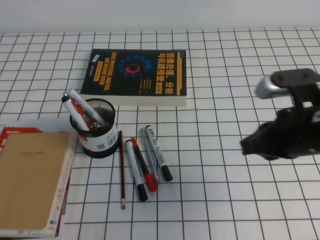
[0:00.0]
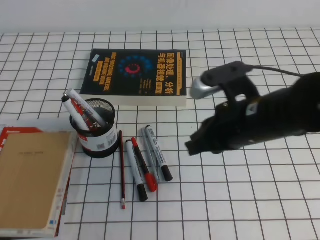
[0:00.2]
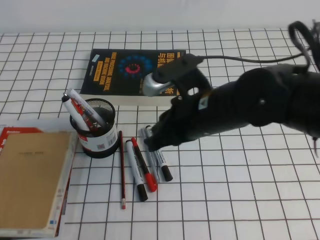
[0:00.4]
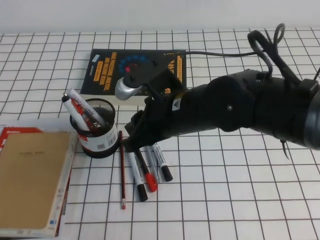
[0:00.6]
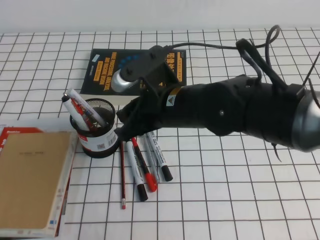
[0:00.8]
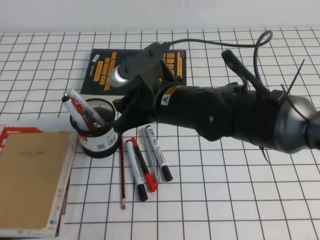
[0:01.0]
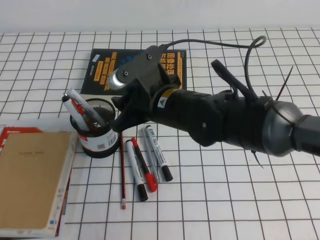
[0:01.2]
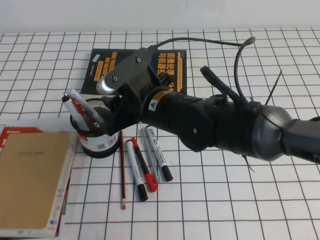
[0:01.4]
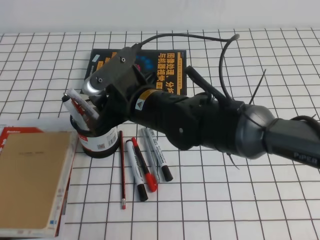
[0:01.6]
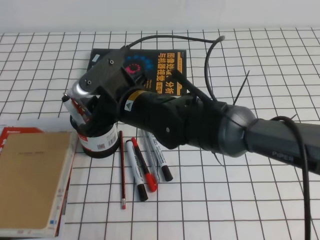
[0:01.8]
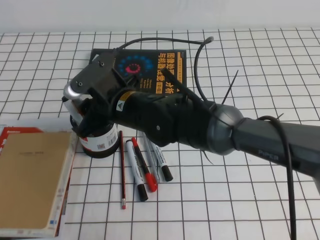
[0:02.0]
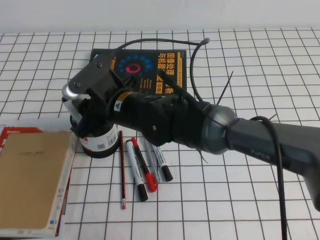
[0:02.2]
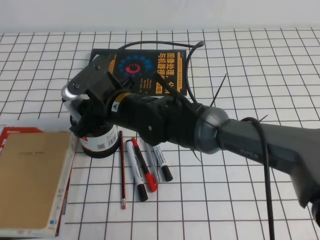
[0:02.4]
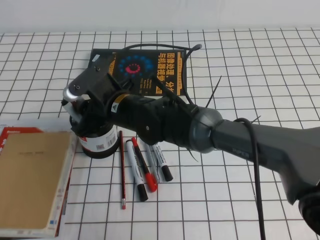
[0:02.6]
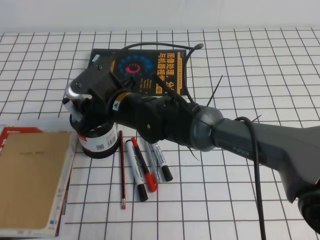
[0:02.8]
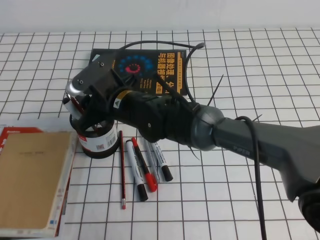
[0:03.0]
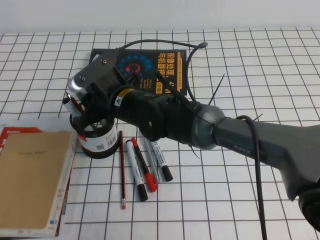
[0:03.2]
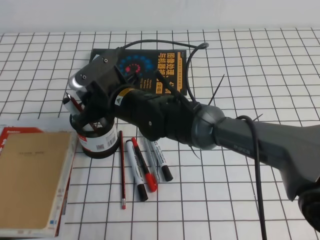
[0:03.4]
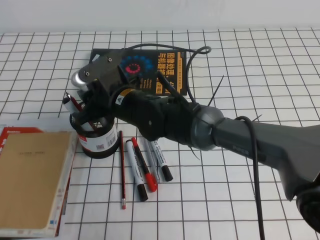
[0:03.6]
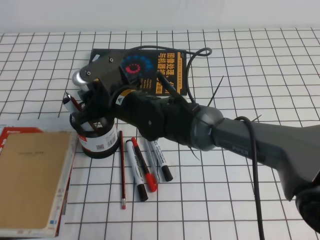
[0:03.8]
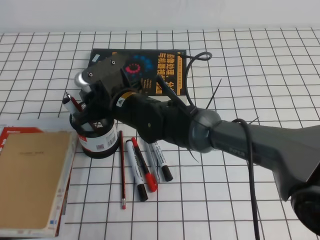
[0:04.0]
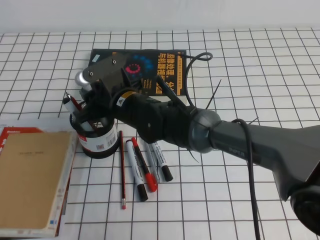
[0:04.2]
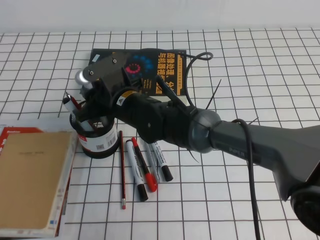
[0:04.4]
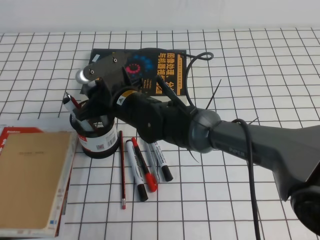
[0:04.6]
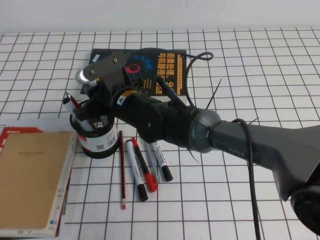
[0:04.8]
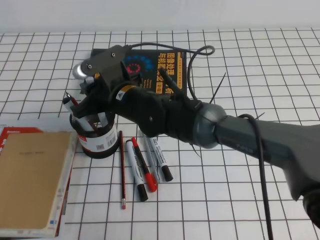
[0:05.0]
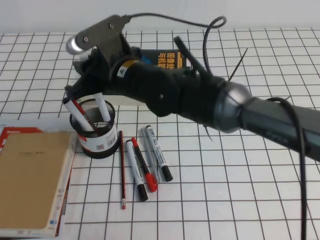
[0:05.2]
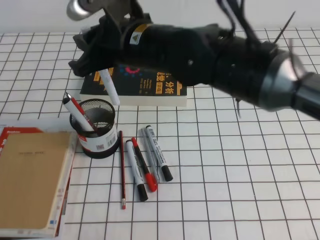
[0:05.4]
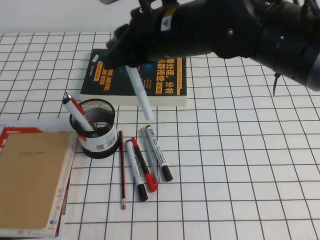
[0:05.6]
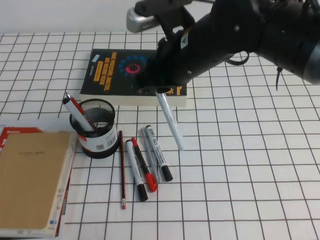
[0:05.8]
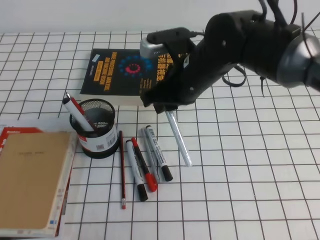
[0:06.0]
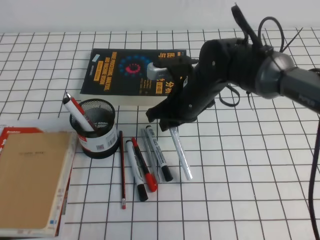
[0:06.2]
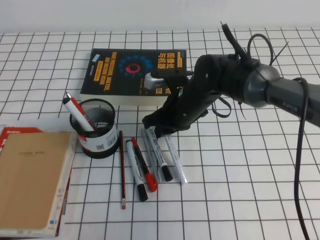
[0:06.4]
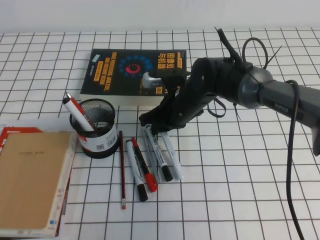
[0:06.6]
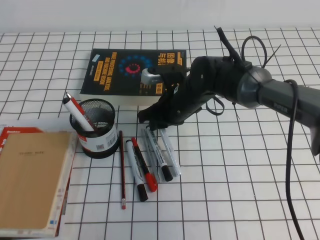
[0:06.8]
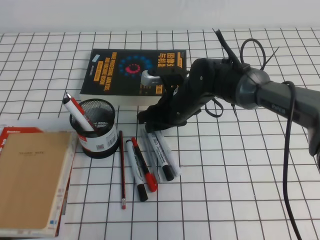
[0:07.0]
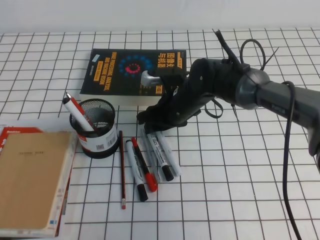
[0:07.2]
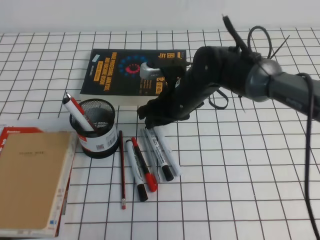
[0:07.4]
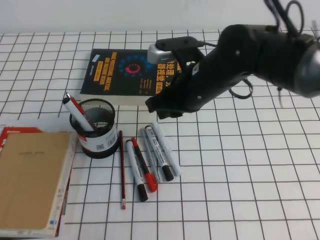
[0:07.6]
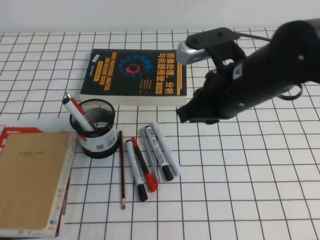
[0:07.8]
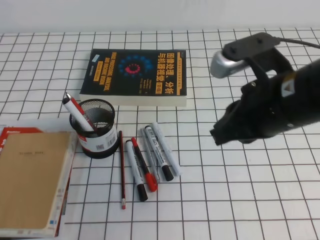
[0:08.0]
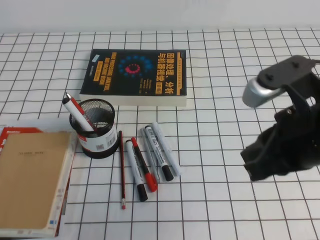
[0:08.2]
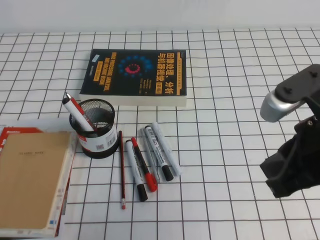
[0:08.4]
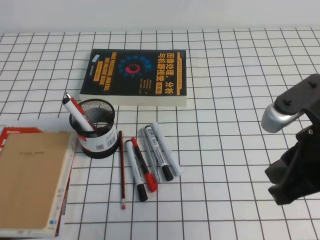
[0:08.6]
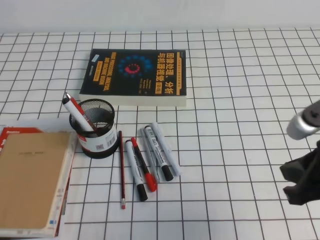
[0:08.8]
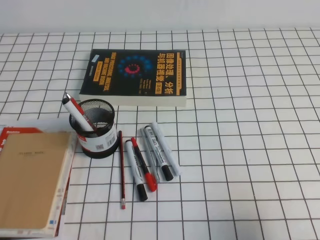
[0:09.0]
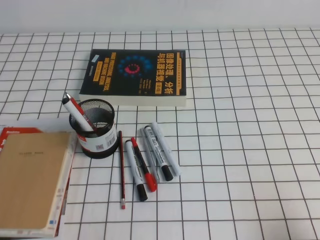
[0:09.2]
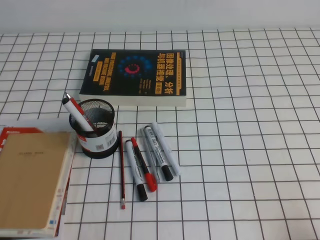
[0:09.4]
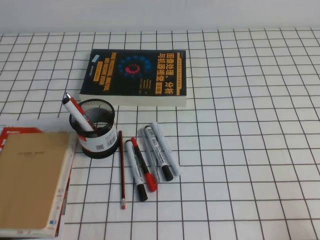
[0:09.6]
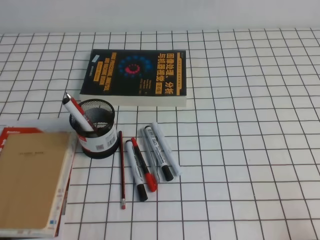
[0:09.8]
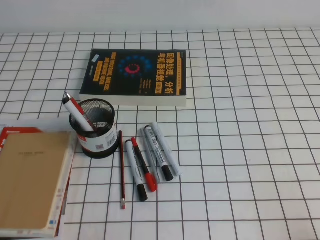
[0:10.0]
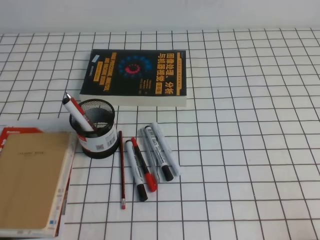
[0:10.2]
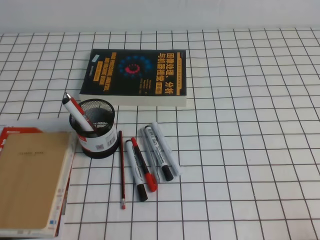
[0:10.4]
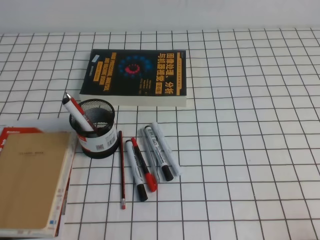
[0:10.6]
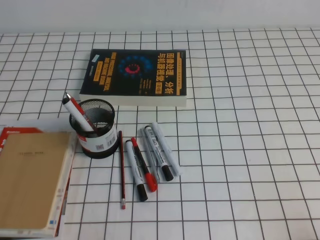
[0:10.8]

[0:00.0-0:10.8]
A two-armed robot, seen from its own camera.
Step, 0:00.0 to 0:10.8: Pick up the pen from the pen holder.
0:00.0 to 0:01.6: The right gripper heads to the left, covering about 25 cm, and opens up.
0:01.6 to 0:03.0: The right gripper changes place by approximately 5 cm.
0:03.0 to 0:04.6: The right gripper closes.
0:04.6 to 0:06.2: The right gripper moves to the right, roughly 10 cm, and moves some 15 cm upward and comes back.
0:06.2 to 0:07.8: The right gripper is displaced backward, upward and to the right by some 10 cm, and opens, then closes again.
0:07.8 to 0:09.2: The right gripper shifts approximately 30 cm to the right, backward and downward.
0:09.2 to 0:10.8: The right gripper heads downward and backward, covering approximately 10 cm.
